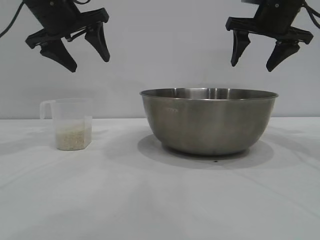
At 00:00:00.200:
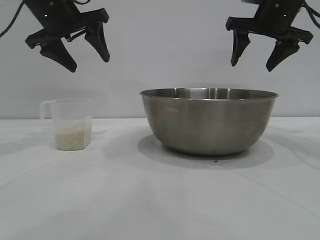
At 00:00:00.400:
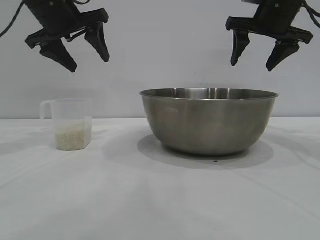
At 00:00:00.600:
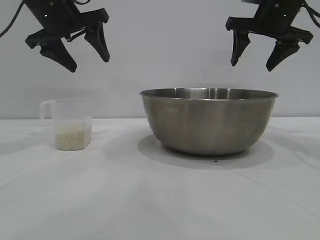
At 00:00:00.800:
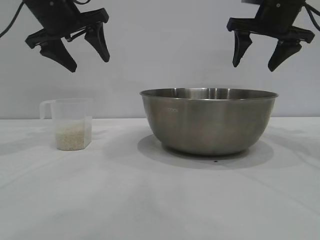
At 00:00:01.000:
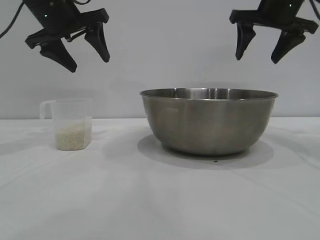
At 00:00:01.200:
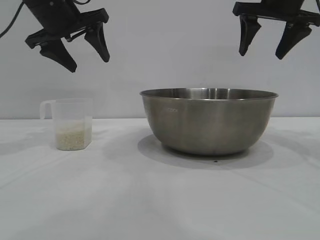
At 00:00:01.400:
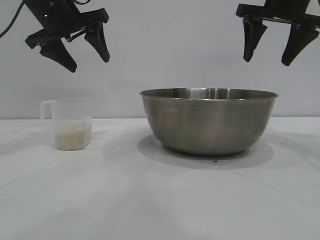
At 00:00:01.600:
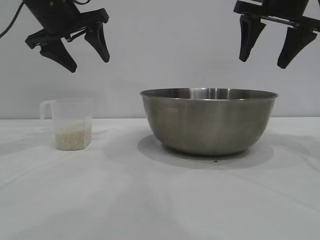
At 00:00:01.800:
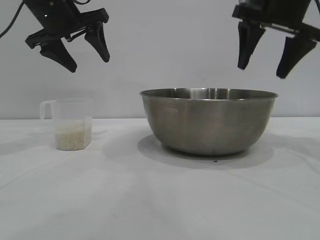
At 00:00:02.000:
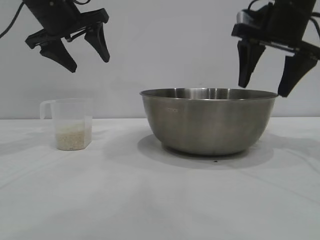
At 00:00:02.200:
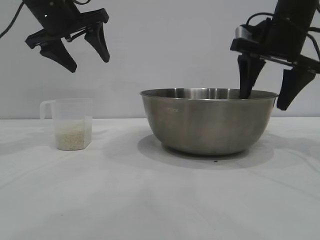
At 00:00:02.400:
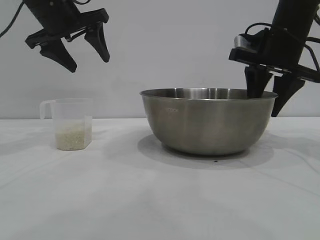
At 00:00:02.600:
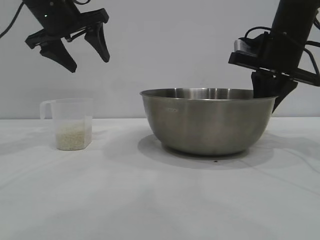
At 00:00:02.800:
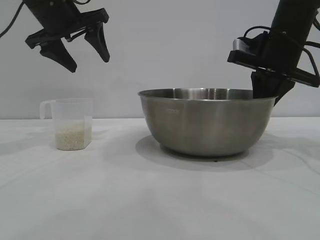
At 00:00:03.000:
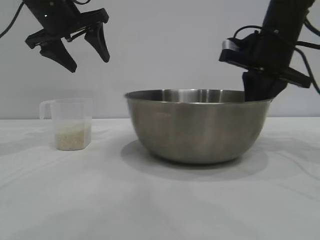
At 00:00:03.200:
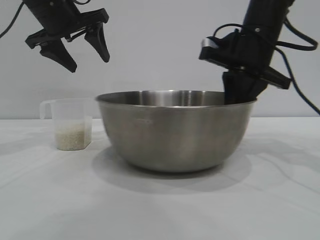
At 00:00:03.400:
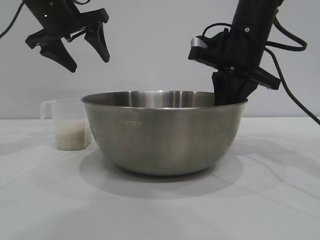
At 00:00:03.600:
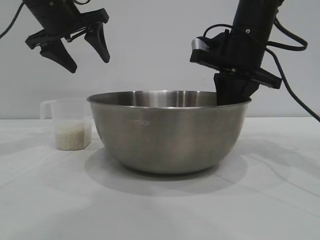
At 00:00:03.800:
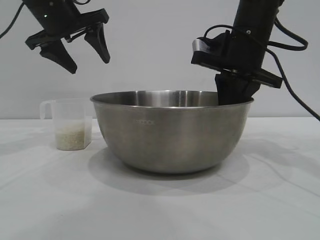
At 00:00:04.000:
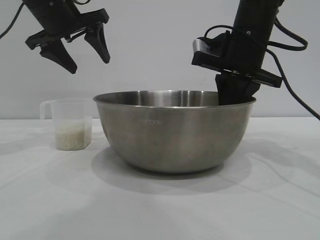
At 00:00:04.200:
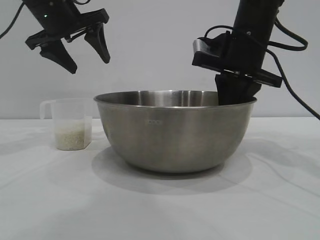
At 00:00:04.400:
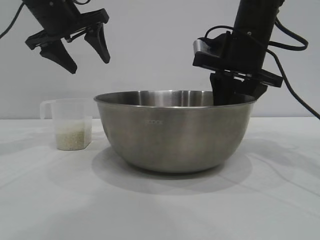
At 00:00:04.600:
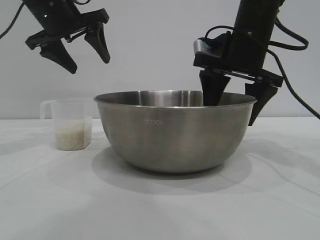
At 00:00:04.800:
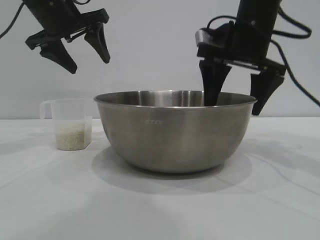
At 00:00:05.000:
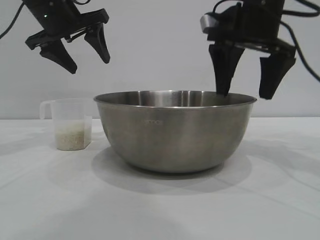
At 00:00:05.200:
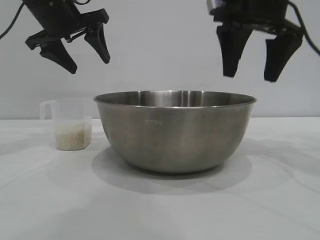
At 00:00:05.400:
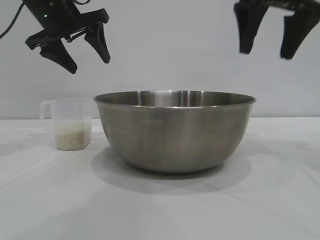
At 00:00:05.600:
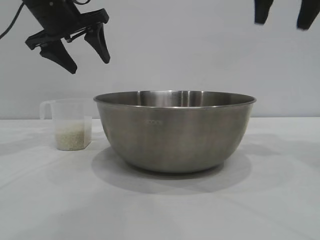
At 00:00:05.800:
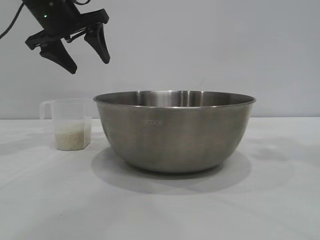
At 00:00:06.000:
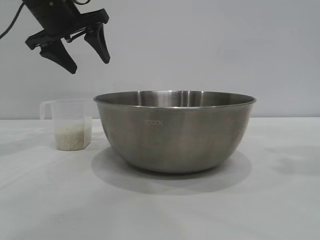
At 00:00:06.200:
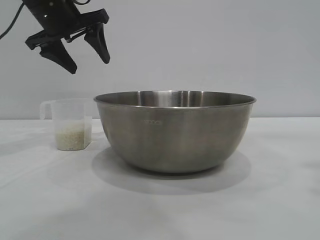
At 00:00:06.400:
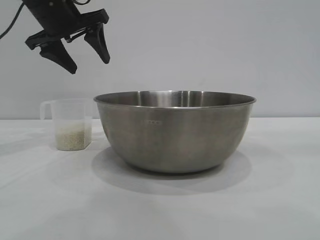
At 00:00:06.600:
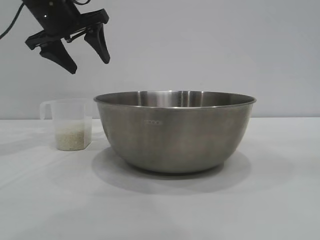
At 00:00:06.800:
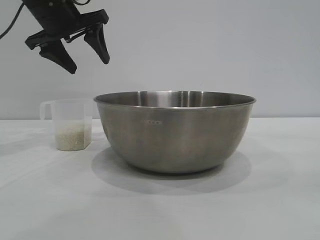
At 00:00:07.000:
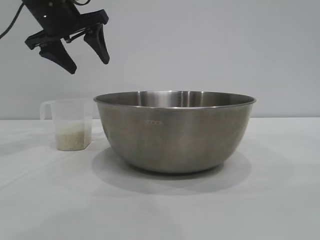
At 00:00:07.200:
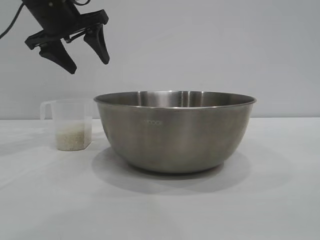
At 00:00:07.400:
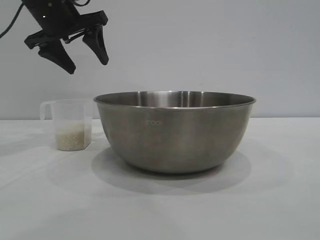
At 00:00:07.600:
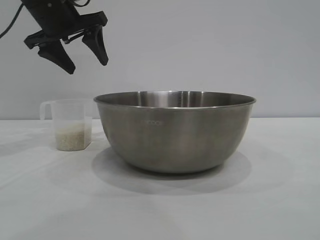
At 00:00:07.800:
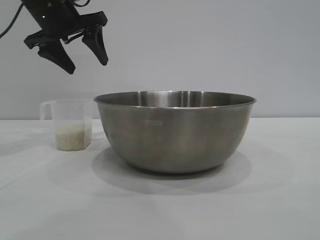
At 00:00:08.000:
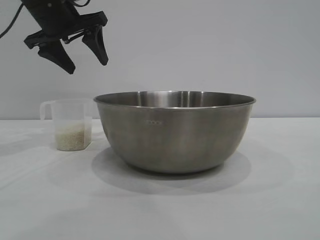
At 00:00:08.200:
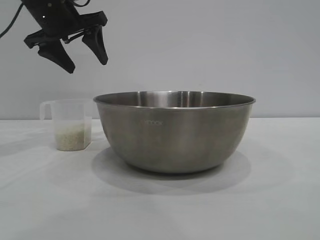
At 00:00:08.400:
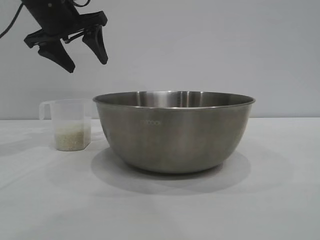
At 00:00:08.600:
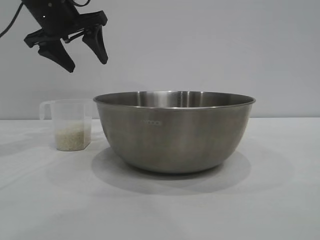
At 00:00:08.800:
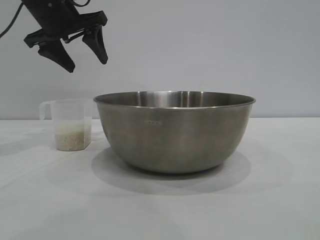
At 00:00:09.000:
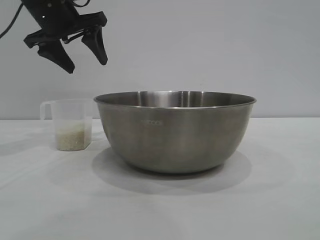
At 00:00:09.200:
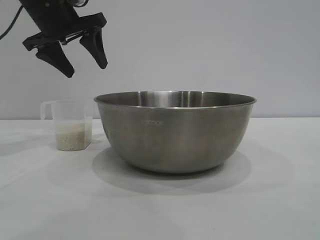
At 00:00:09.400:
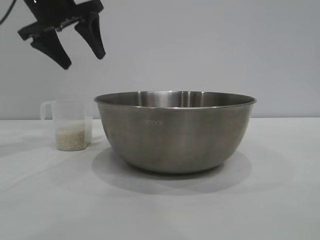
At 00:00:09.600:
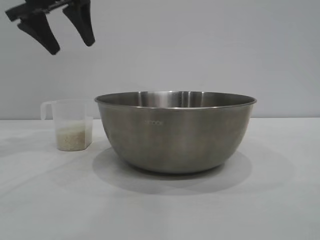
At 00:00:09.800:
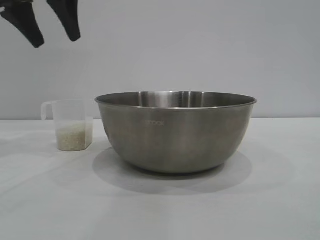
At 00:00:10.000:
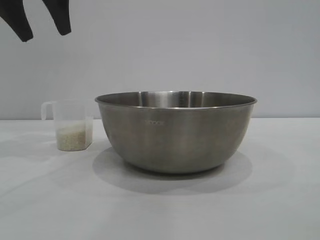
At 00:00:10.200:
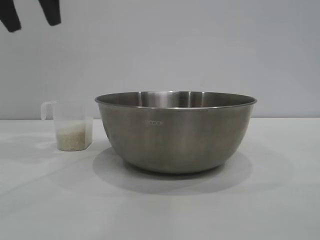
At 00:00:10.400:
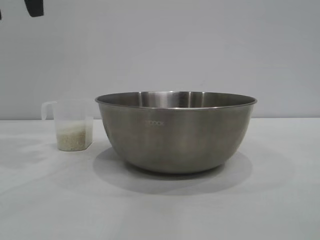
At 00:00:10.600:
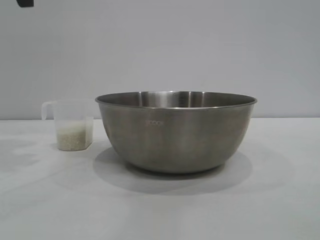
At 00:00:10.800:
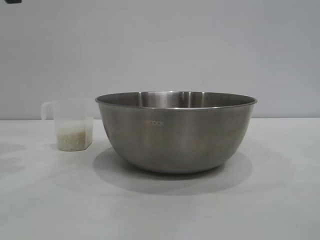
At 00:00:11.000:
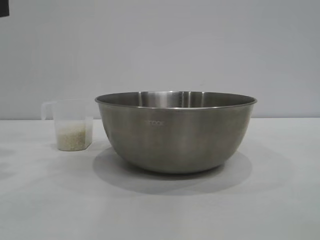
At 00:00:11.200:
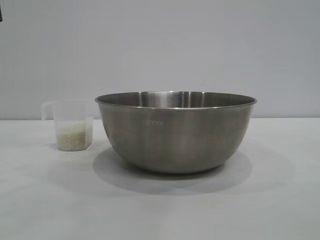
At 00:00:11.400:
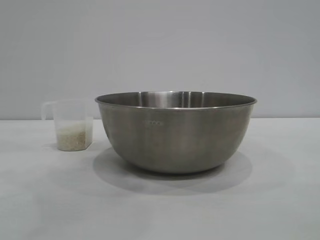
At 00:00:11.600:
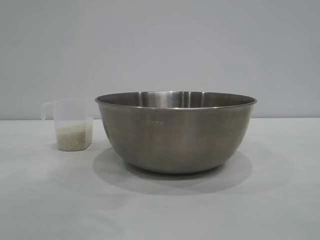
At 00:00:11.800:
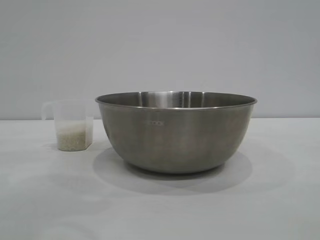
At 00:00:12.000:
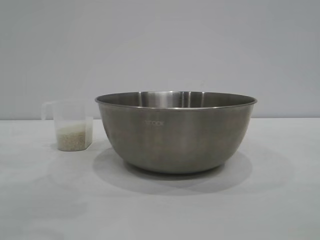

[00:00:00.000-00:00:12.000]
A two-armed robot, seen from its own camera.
Task of the whole recording: the right gripper grasp the rice container and place it in the center of the table, the left gripper grasp the rice scoop and pour the rice into the rice container.
Step, 00:00:00.000 to 00:00:05.000: Move the bowl to the center of view with the right gripper.

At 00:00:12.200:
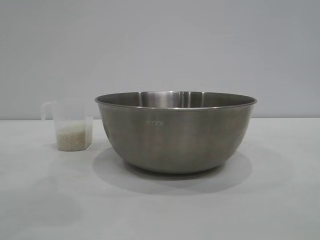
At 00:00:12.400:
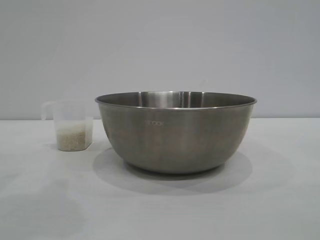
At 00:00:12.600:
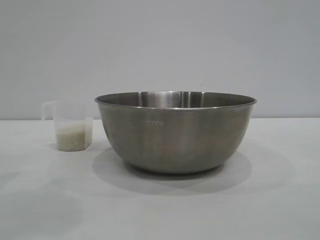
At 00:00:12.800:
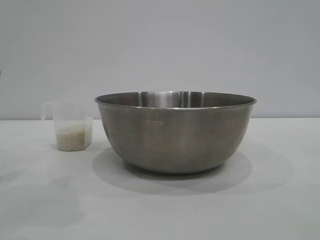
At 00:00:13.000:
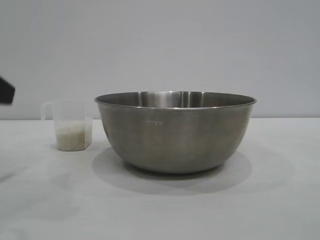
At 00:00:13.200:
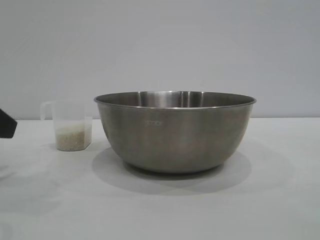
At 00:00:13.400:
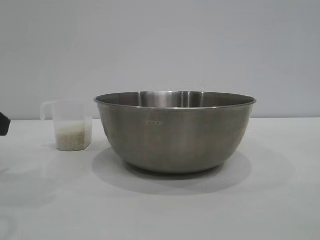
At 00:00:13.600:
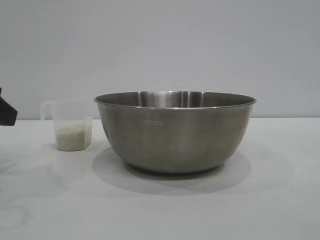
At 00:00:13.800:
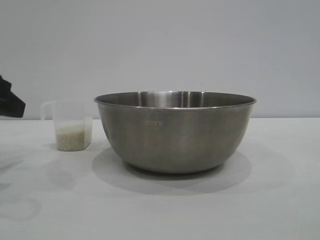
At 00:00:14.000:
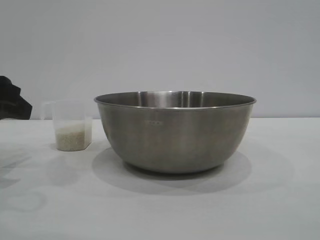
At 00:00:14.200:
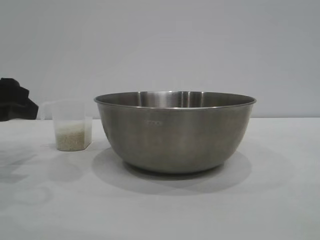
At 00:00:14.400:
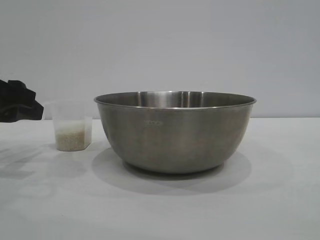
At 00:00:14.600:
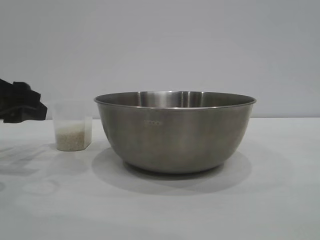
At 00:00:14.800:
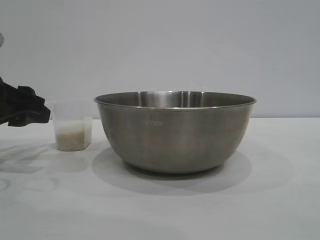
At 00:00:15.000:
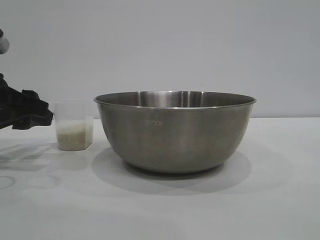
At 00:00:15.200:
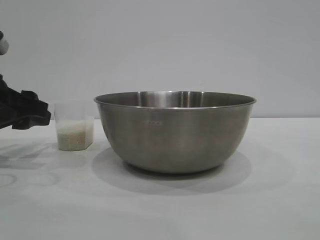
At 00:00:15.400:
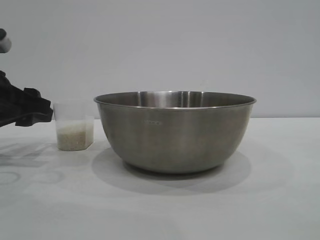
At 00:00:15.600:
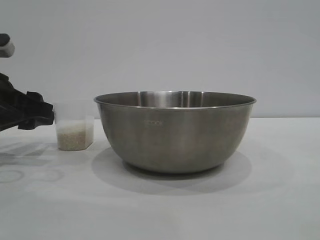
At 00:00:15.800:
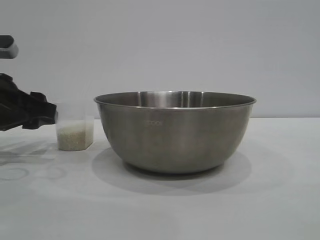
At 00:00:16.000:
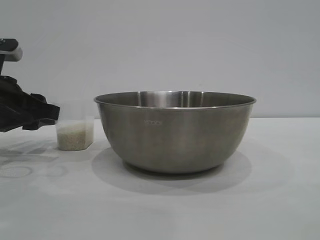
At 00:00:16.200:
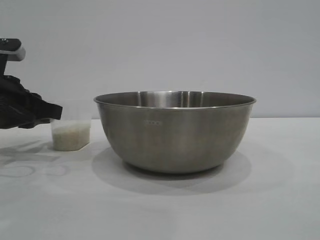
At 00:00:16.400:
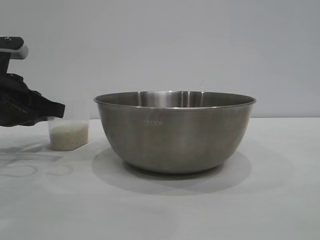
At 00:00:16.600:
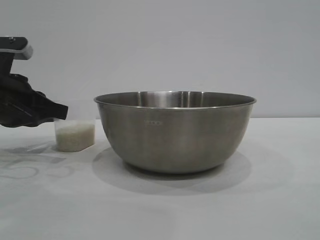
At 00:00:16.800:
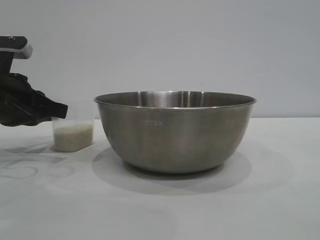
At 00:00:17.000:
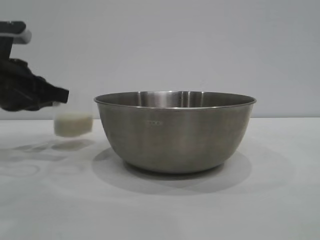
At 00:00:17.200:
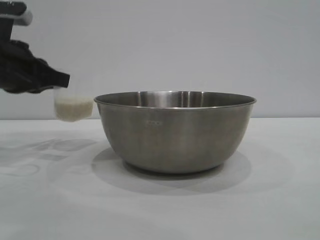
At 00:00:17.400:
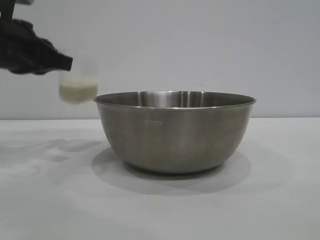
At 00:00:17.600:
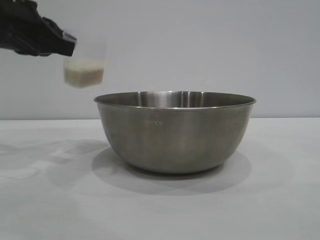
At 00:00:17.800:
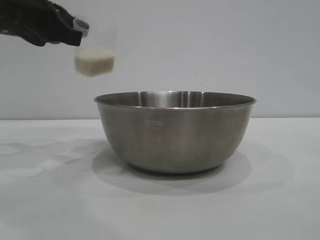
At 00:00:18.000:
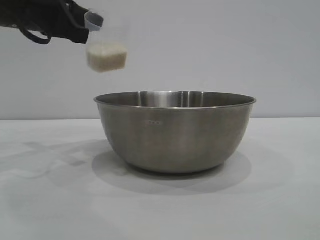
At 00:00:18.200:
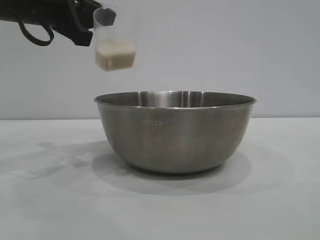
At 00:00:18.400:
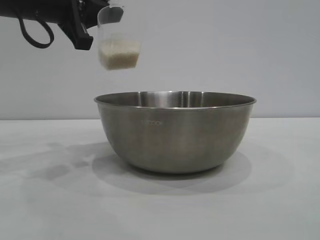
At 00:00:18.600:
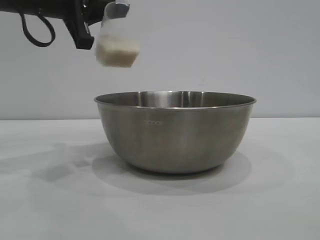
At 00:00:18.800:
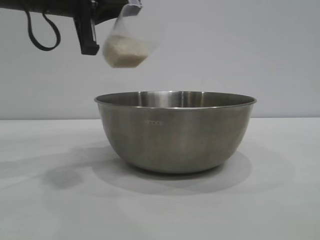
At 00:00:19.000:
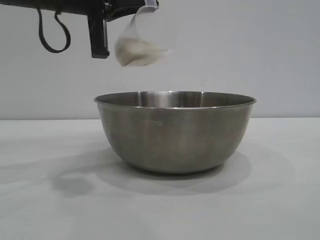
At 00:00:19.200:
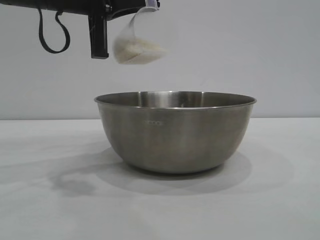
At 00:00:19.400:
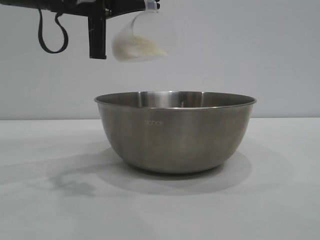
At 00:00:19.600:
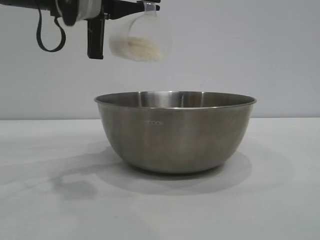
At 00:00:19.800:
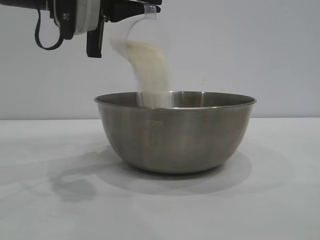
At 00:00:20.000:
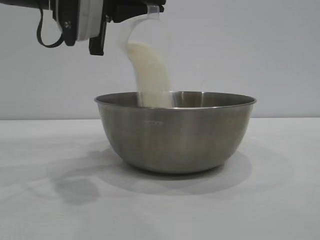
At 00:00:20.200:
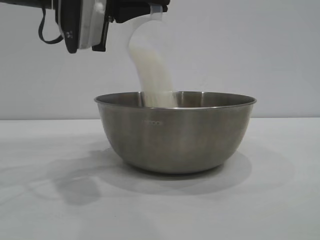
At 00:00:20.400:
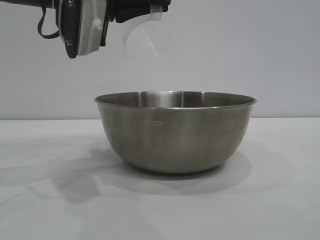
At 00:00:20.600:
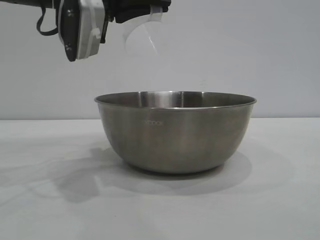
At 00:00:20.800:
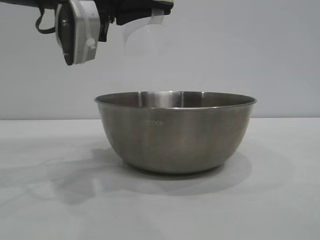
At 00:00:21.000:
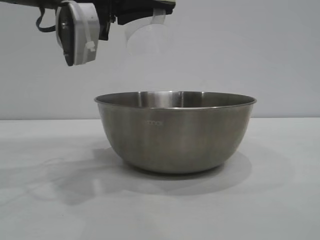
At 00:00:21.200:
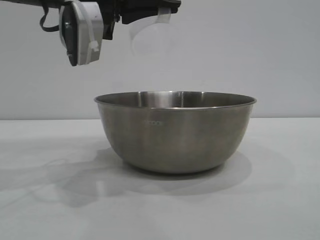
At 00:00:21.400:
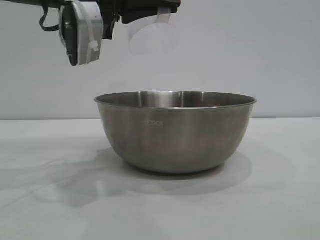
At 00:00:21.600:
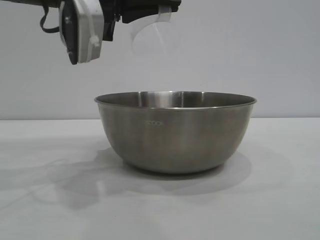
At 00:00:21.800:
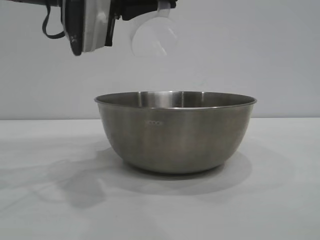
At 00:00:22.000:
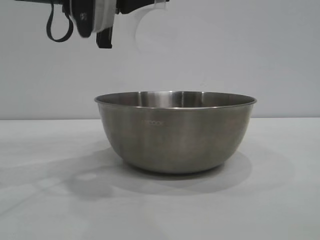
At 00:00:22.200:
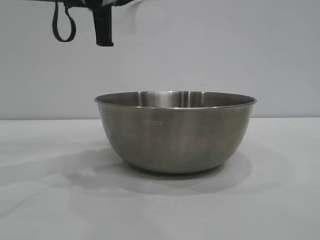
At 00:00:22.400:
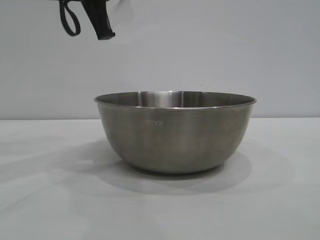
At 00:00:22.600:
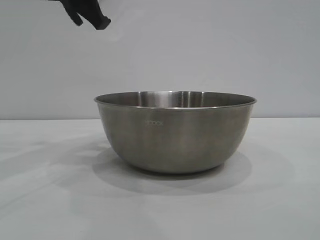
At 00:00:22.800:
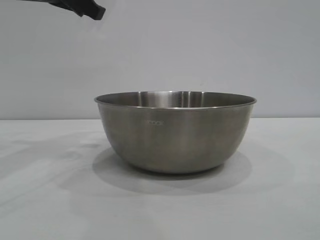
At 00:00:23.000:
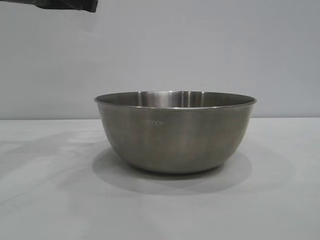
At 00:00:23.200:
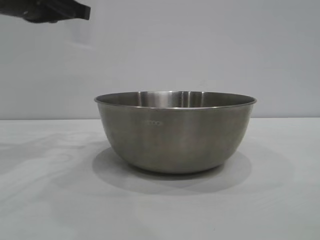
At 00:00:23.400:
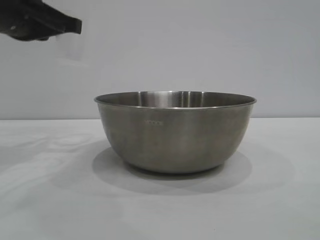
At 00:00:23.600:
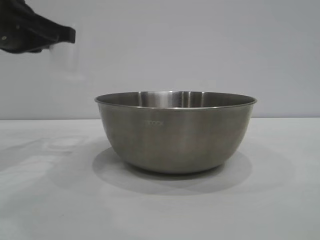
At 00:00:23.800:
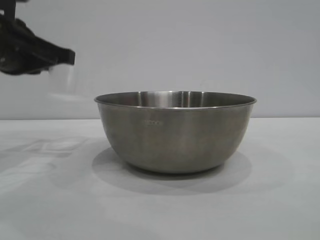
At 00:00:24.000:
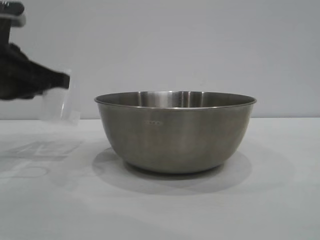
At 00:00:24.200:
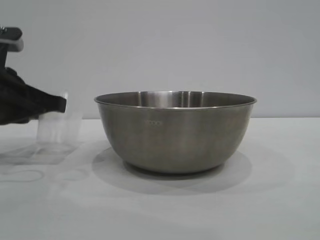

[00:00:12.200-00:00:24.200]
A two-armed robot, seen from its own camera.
Task of the whole recording: the right gripper grasp the rice container and place it in the center of the table, the left gripper grasp the rice scoop and pour the rice into the rice container.
Step, 00:00:12.200 to 00:00:17.000: Pick up the cup with rice in it with the left gripper.
Step, 00:00:17.200 to 00:00:20.600: Pour the rice from the cup into the bowl with the left gripper.
